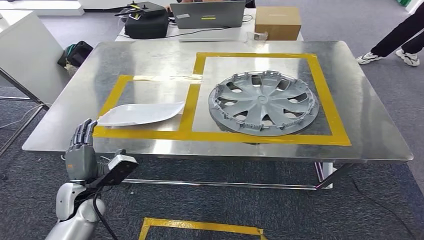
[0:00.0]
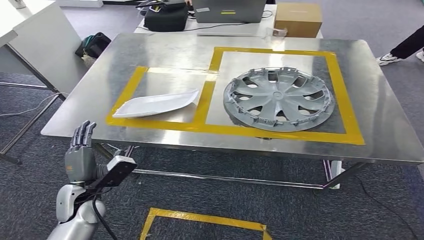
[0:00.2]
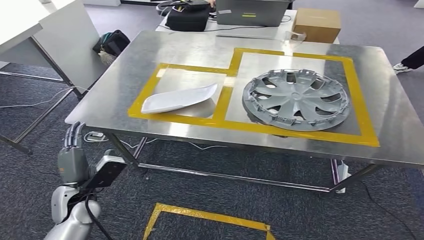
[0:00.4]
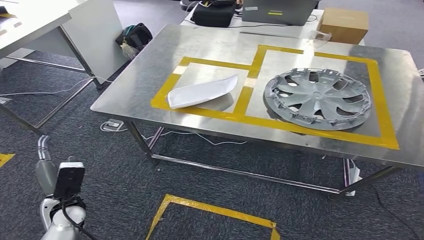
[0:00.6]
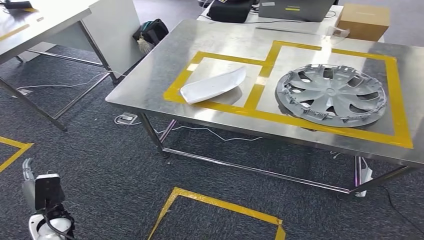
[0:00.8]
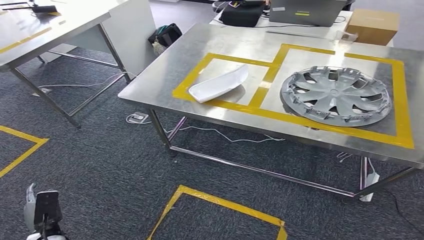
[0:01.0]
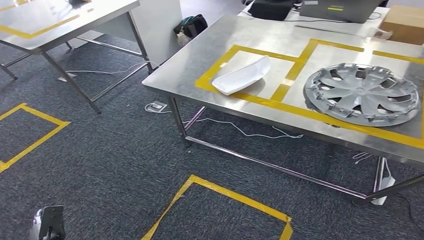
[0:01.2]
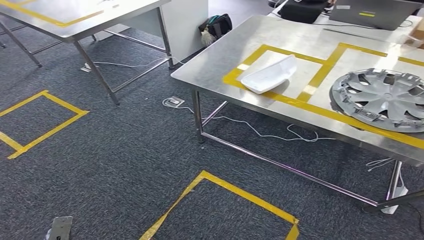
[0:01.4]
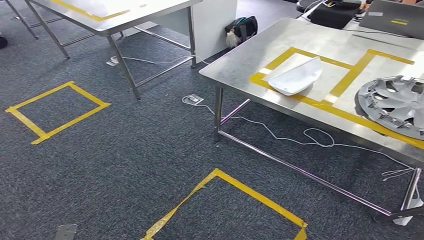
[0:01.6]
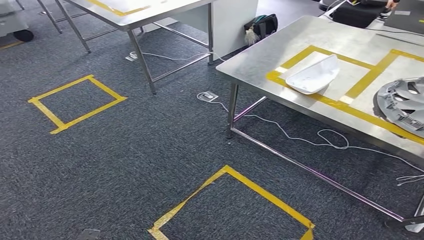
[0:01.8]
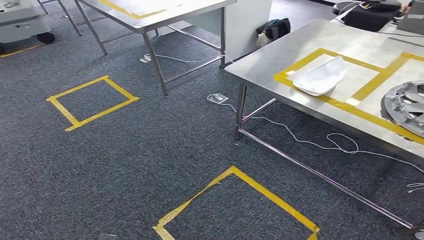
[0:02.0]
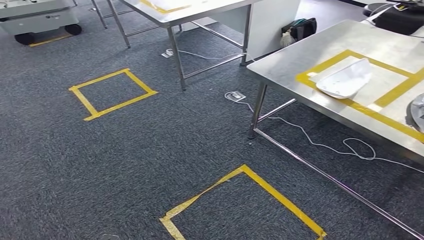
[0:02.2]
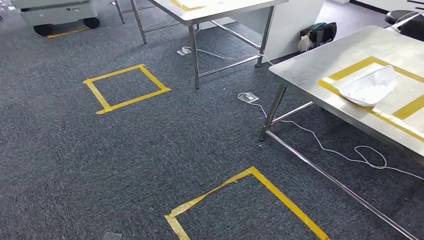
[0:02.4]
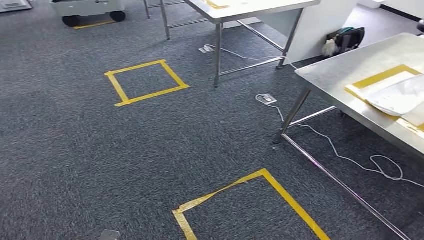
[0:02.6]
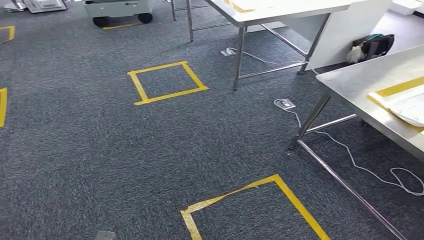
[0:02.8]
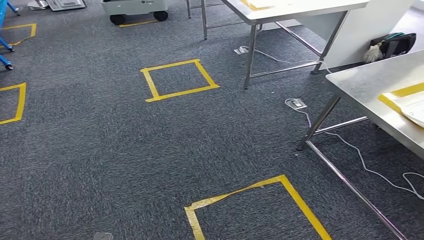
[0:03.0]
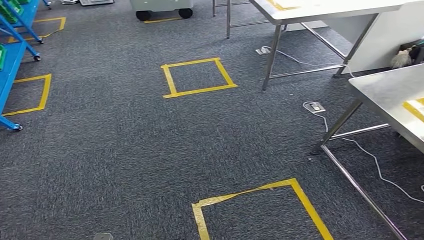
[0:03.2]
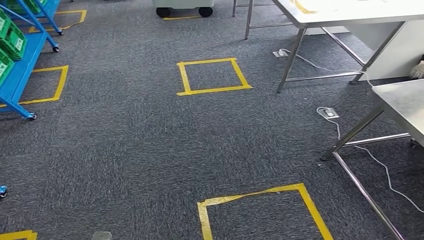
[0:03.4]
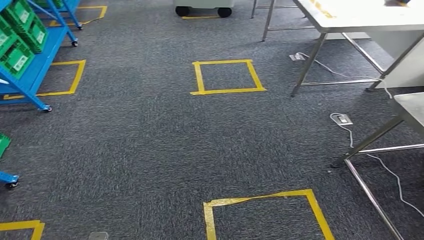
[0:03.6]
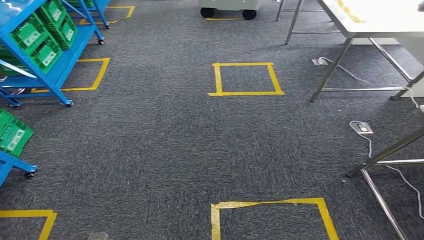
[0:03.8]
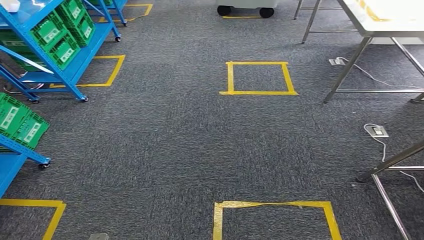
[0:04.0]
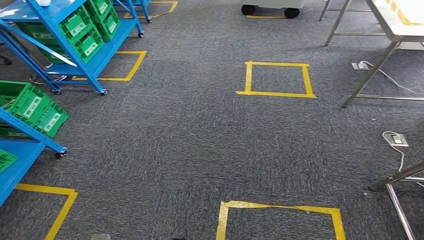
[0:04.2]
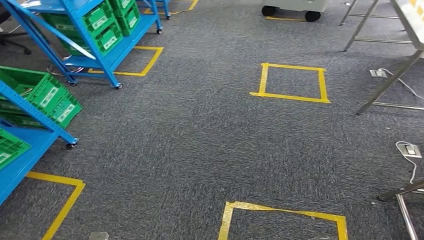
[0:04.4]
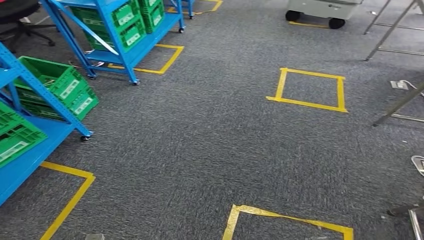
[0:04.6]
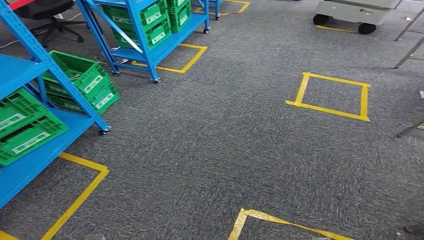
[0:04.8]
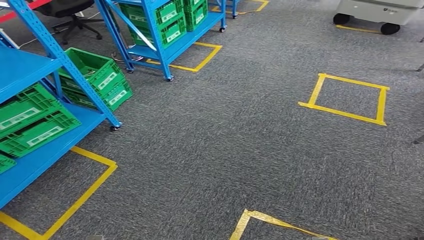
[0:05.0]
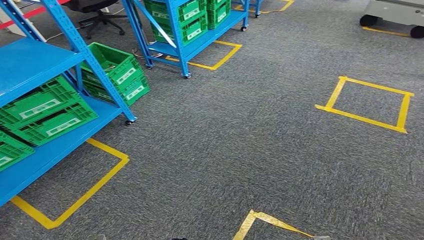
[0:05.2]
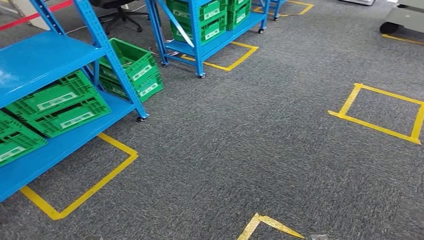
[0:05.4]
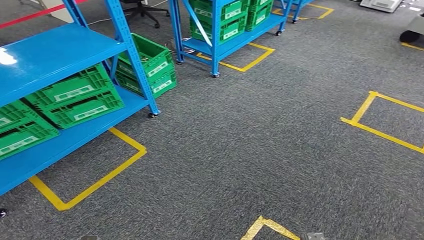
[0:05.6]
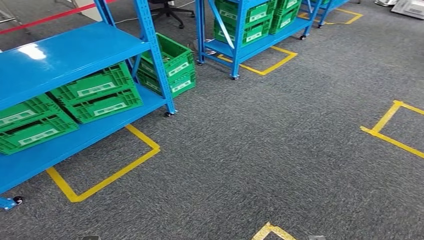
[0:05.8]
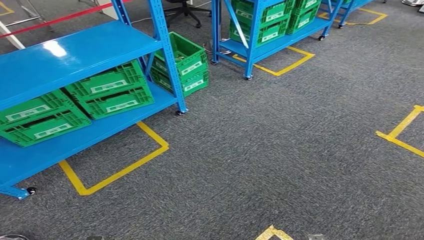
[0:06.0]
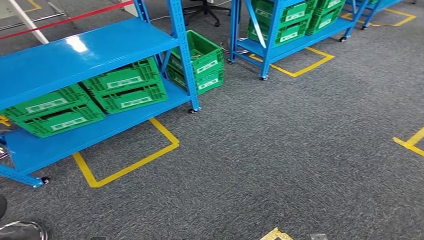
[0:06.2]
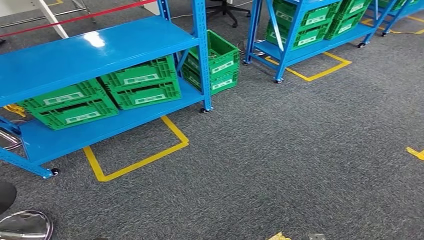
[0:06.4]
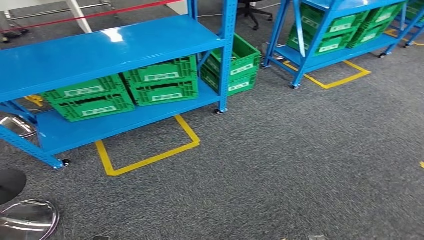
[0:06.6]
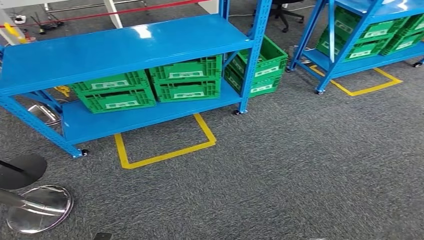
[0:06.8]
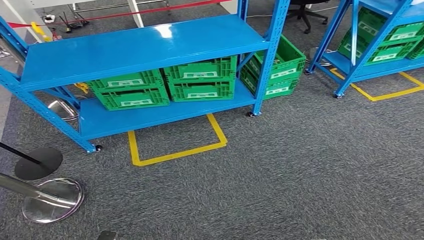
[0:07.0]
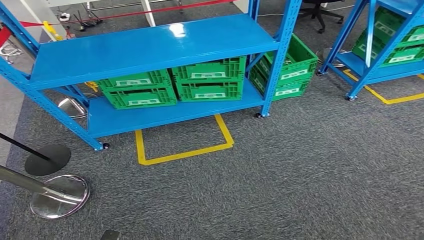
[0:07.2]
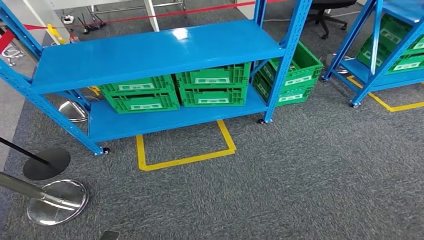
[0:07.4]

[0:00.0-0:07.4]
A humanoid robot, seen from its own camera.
Step, 0:01.0 to 0:07.4: Move to the initial position at the workbench.

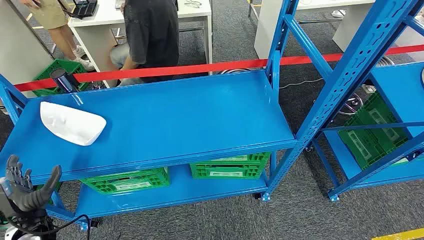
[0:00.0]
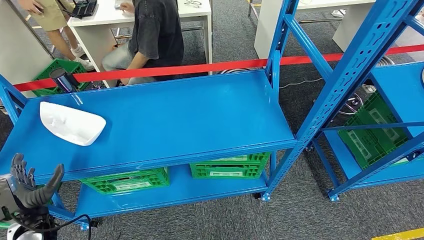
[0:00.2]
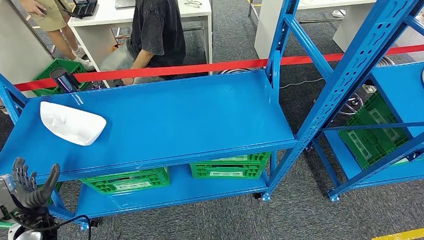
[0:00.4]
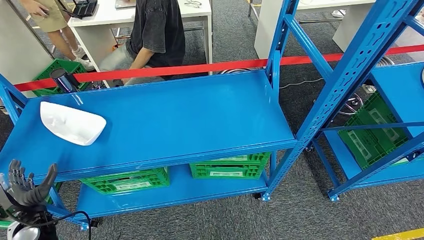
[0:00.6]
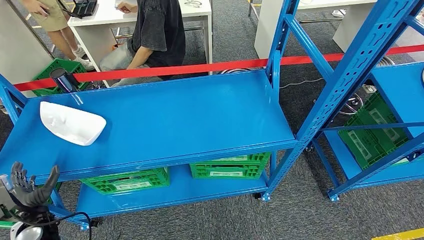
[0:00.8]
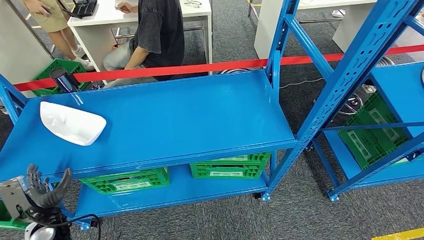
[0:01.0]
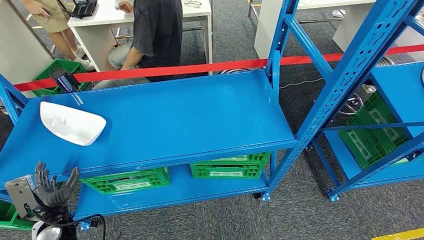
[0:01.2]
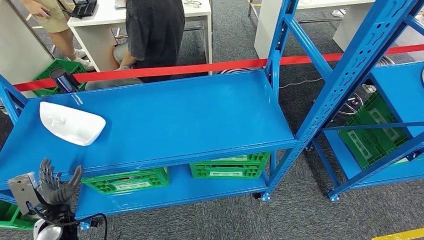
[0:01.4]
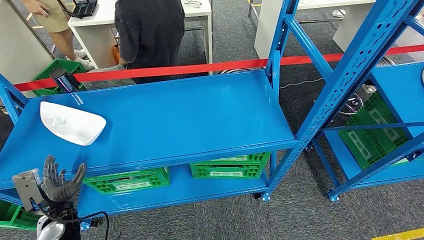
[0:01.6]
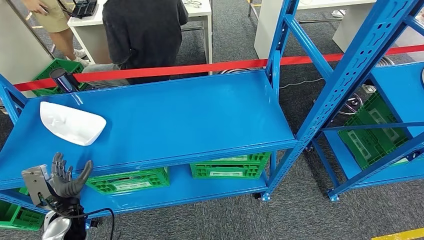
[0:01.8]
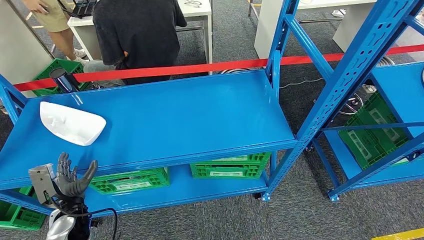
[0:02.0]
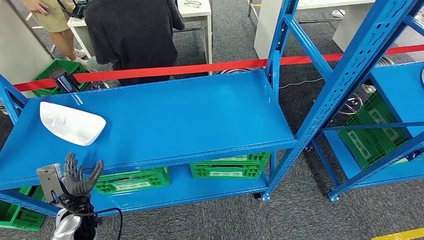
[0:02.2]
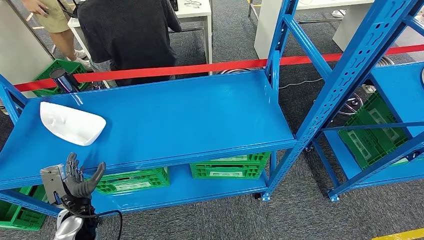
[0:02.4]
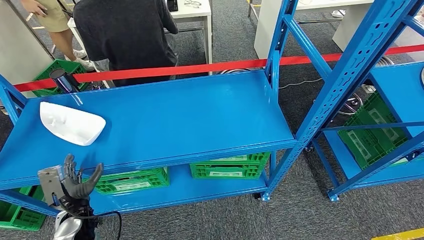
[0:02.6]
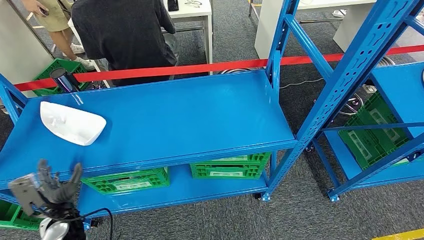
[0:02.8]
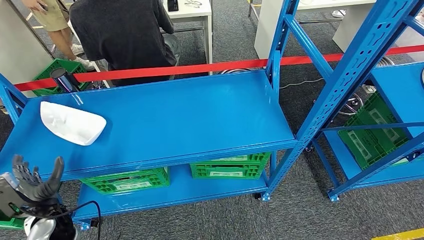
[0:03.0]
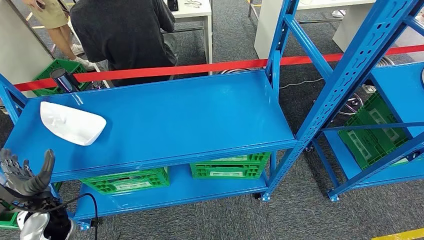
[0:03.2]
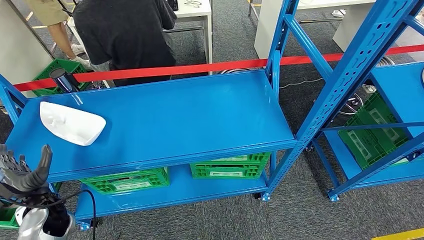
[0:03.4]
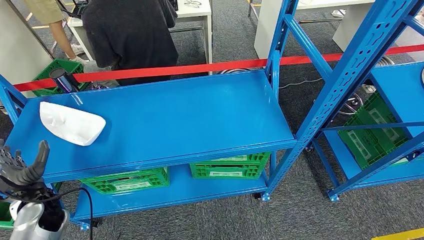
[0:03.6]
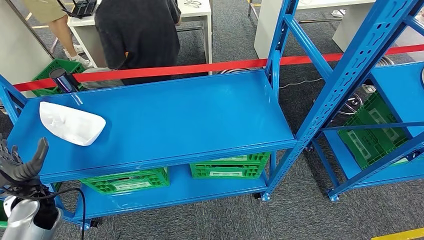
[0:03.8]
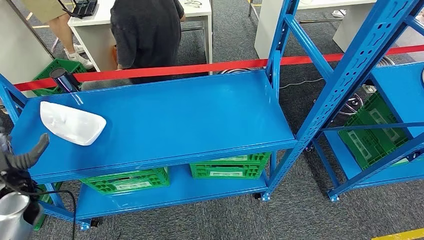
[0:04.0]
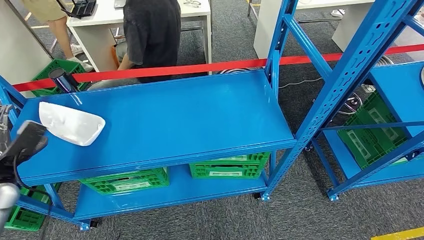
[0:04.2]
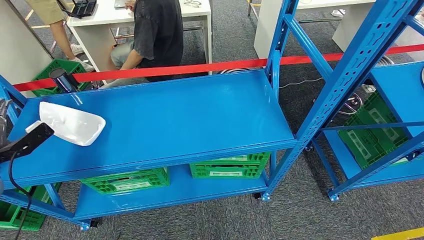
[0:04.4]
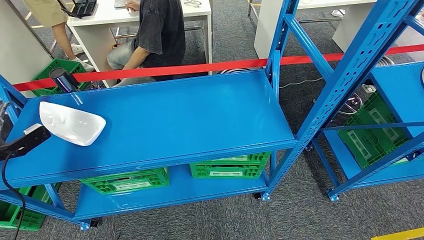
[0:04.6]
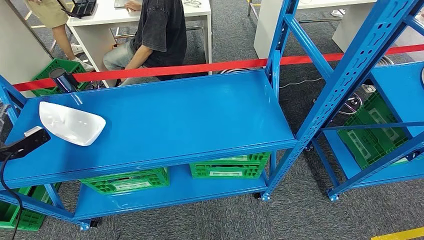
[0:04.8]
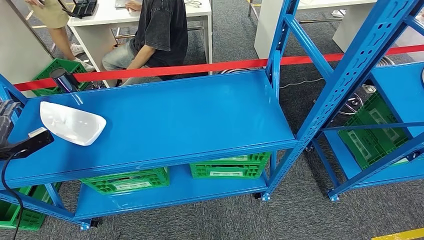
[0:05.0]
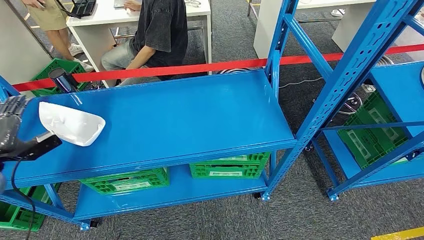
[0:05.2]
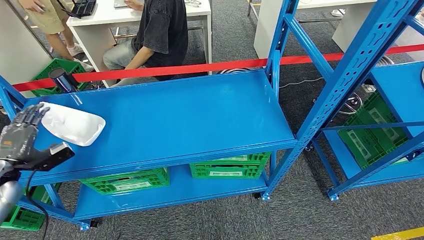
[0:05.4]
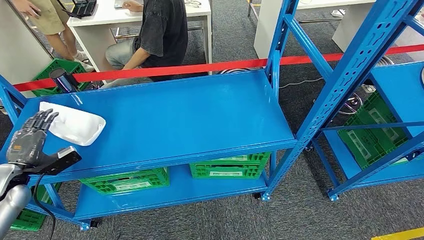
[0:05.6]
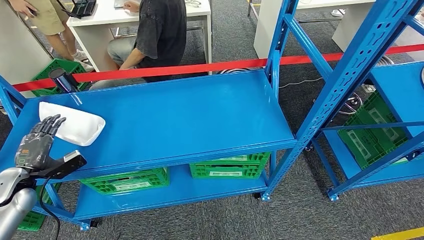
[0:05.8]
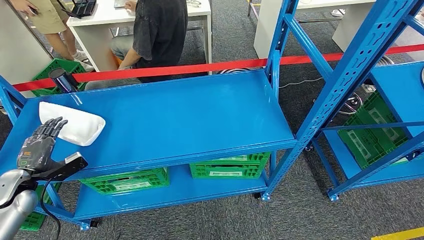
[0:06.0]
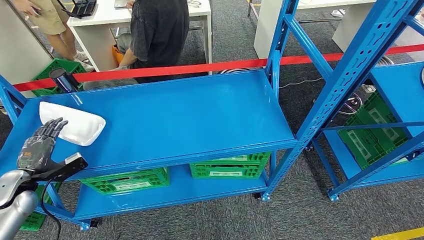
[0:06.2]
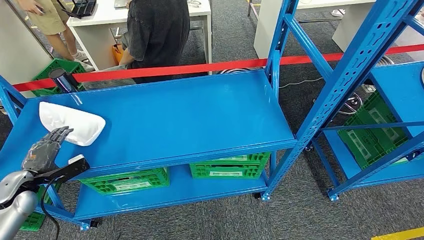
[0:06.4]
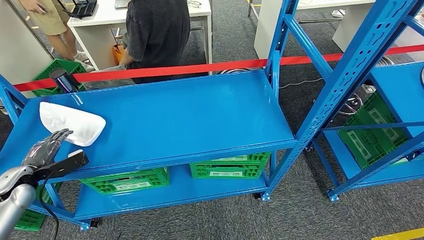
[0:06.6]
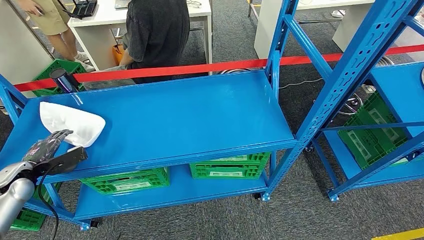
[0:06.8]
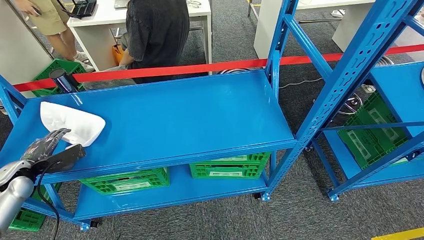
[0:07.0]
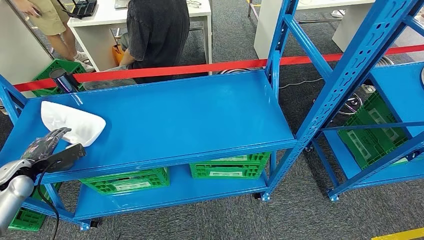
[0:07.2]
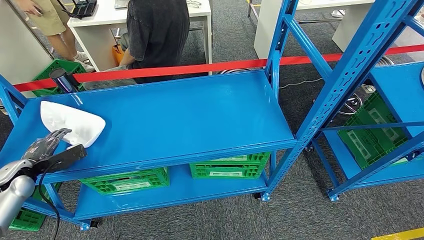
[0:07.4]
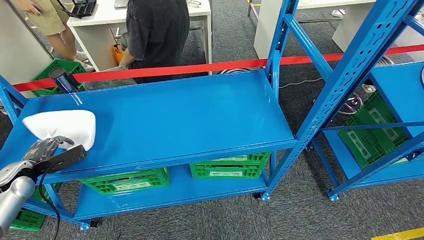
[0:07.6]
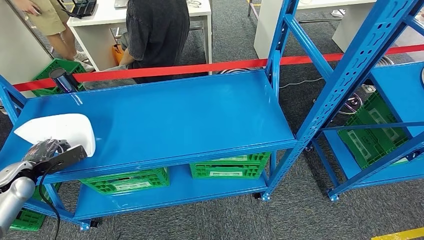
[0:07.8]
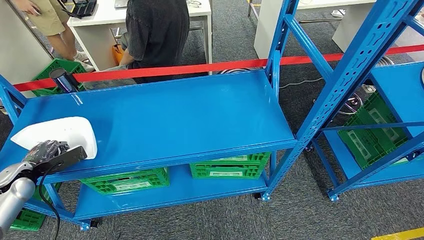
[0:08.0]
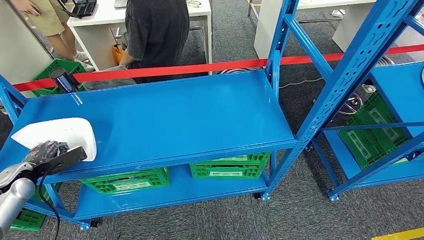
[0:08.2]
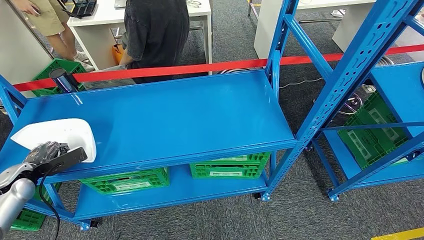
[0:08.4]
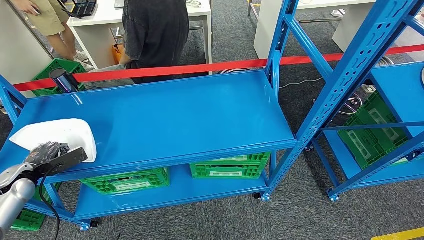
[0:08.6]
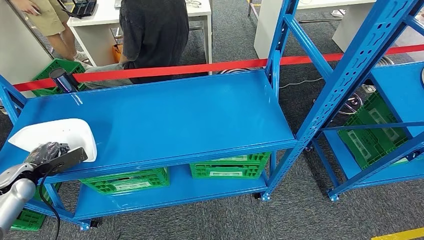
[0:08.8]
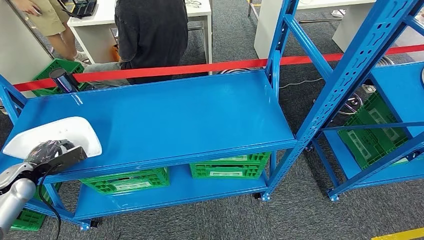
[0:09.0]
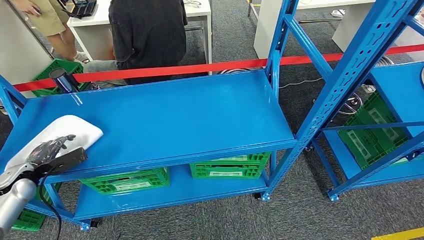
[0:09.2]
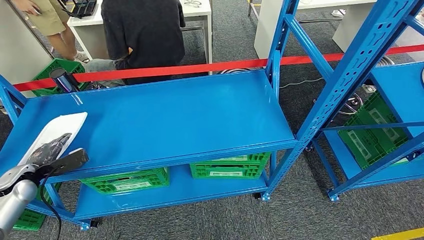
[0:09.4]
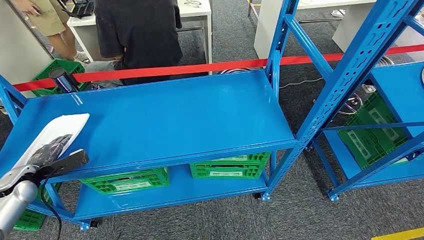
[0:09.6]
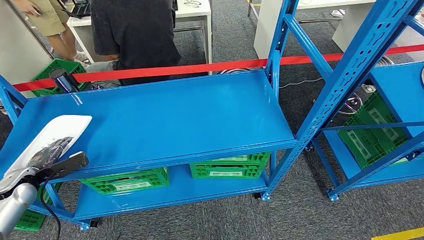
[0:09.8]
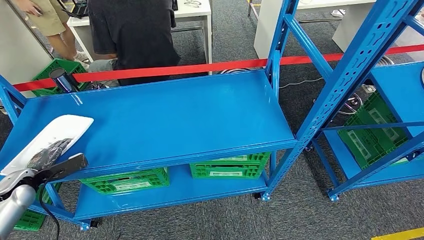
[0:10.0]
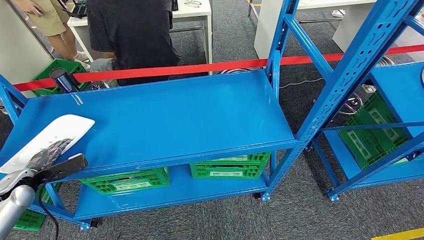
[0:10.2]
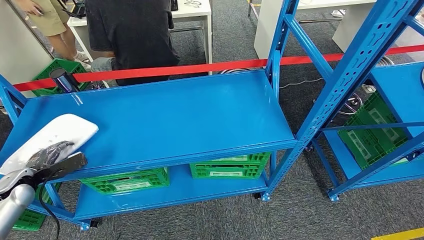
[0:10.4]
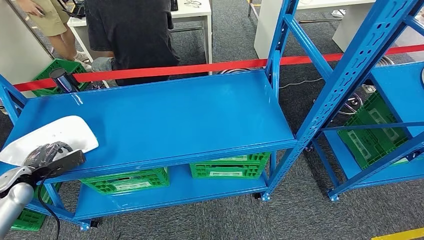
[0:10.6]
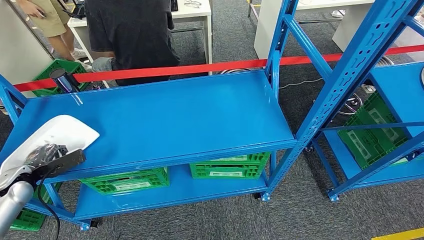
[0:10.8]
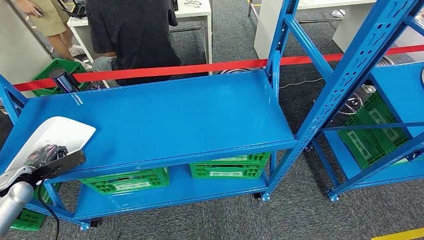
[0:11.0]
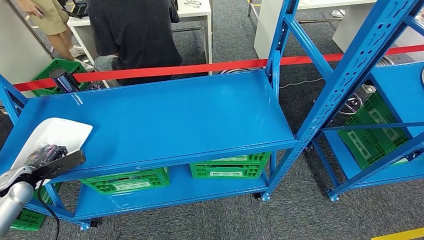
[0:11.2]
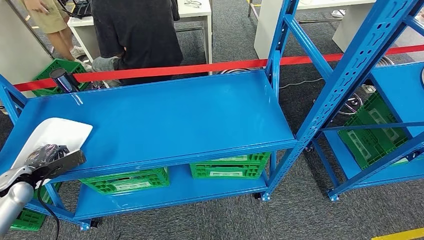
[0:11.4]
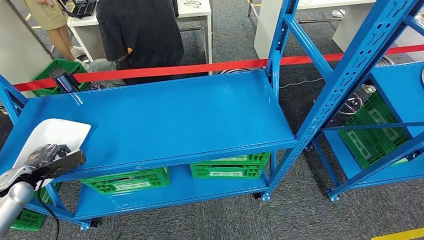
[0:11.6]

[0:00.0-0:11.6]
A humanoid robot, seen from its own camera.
0:01.4 to 0:02.8: There are only small adjustments of the hands.
0:02.8 to 0:04.4: The left hand moves to the left, upward and forward, some 25 cm.
0:04.4 to 0:05.8: The left hand shifts about 10 cm downward.
0:07.2 to 0:08.8: Both hands stay about where they are.
0:08.8 to 0:10.2: There are only small adjustments of the hands.
0:10.2 to 0:11.6: The two hands keep their place.
